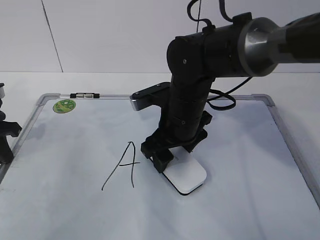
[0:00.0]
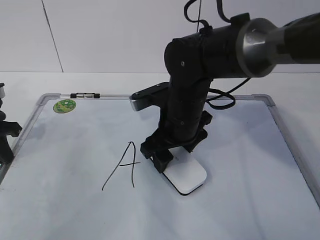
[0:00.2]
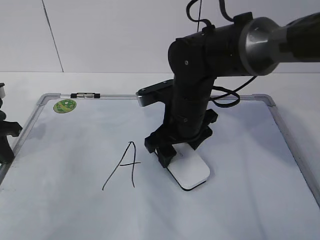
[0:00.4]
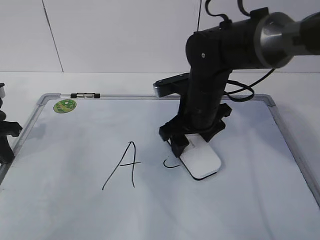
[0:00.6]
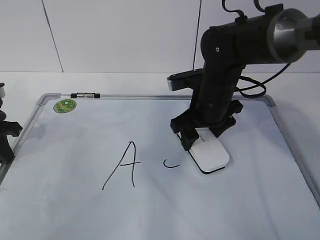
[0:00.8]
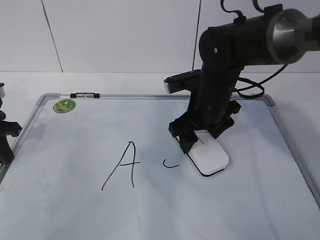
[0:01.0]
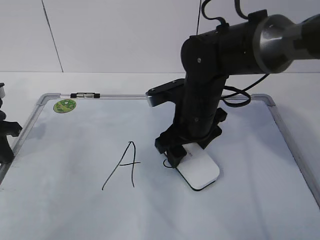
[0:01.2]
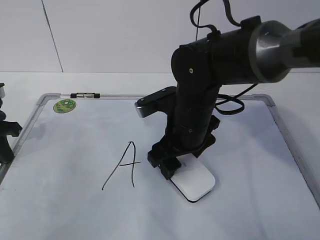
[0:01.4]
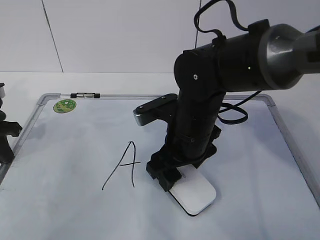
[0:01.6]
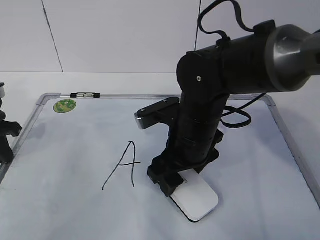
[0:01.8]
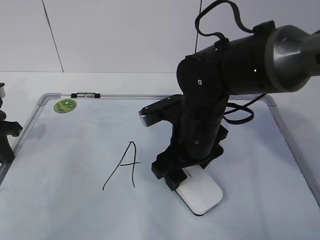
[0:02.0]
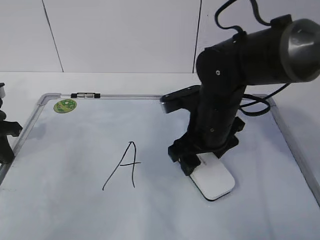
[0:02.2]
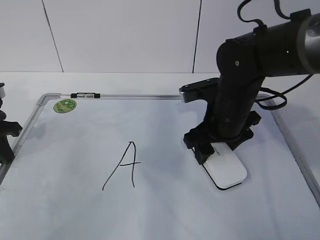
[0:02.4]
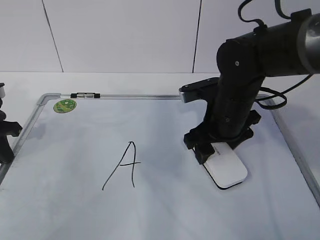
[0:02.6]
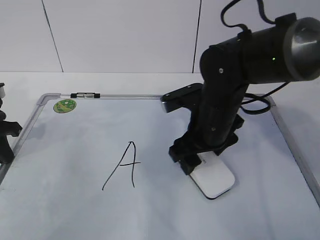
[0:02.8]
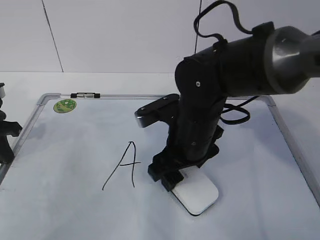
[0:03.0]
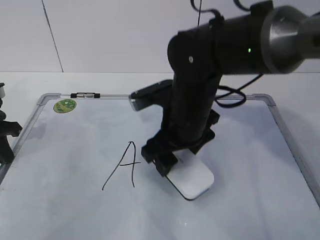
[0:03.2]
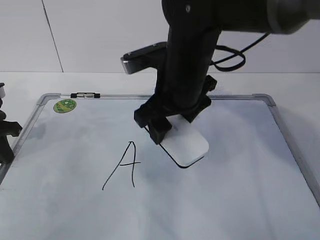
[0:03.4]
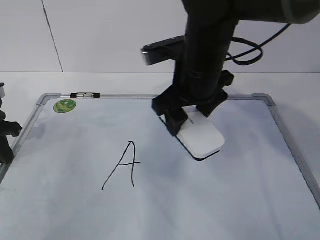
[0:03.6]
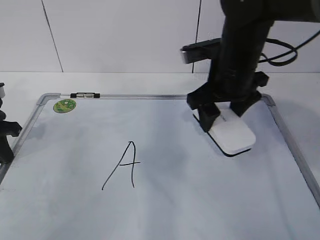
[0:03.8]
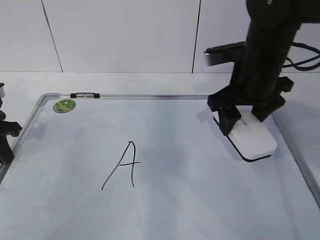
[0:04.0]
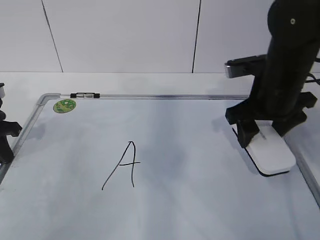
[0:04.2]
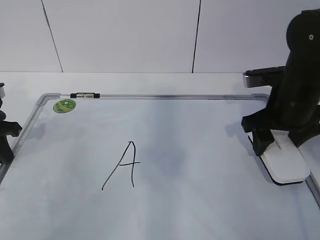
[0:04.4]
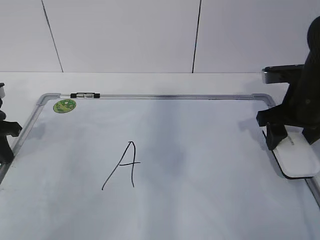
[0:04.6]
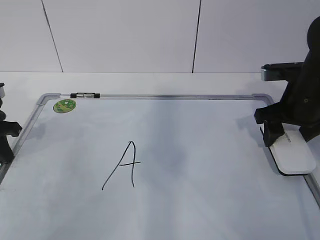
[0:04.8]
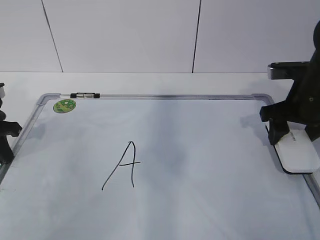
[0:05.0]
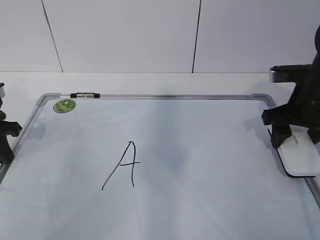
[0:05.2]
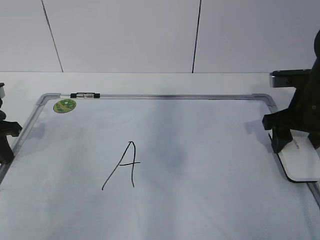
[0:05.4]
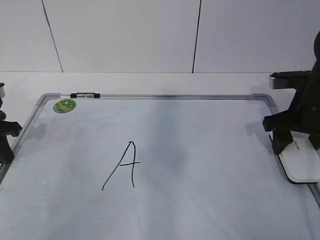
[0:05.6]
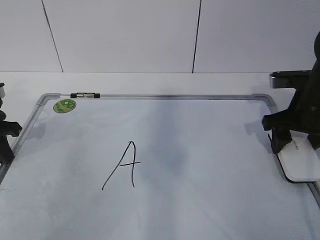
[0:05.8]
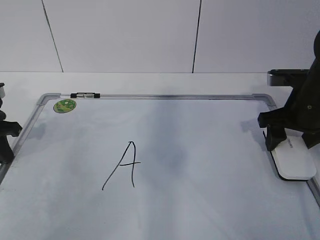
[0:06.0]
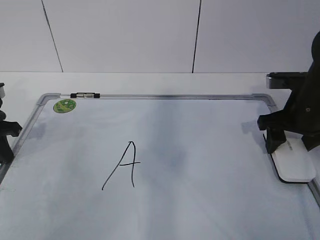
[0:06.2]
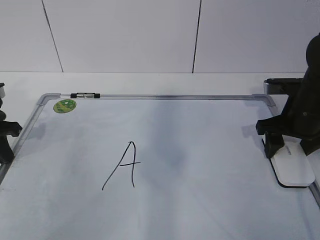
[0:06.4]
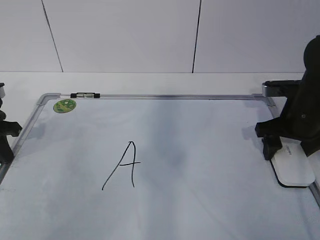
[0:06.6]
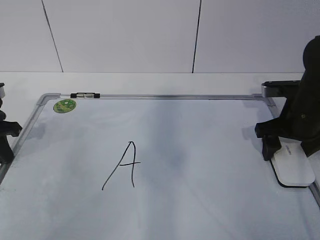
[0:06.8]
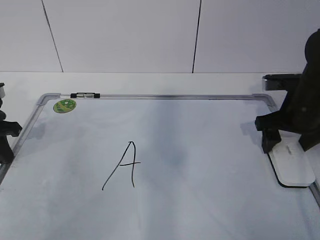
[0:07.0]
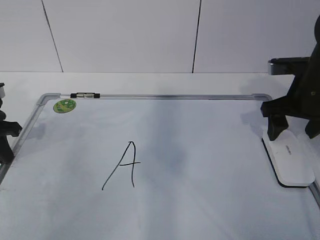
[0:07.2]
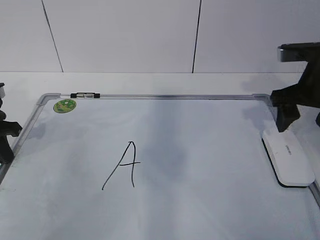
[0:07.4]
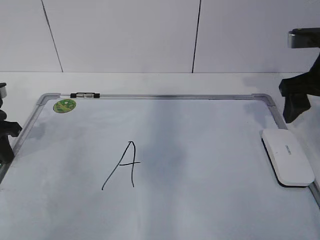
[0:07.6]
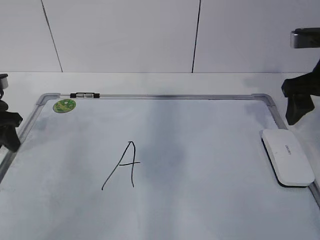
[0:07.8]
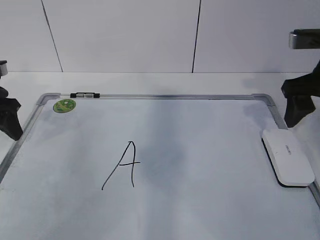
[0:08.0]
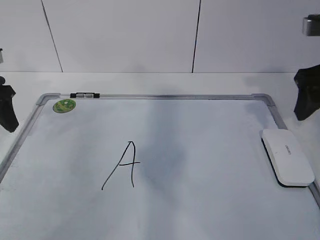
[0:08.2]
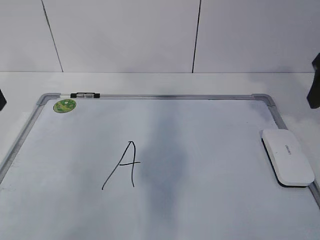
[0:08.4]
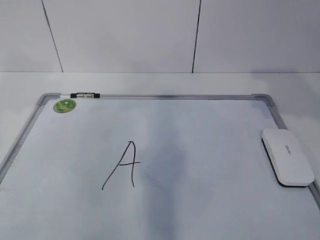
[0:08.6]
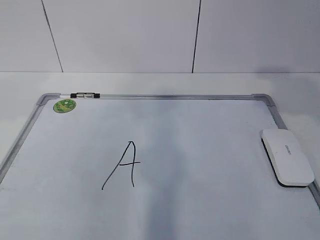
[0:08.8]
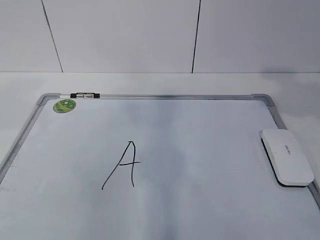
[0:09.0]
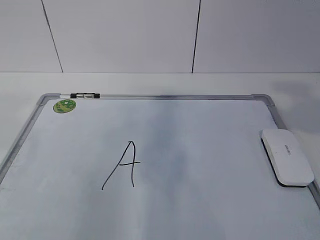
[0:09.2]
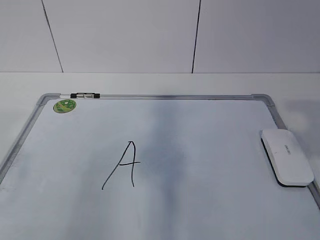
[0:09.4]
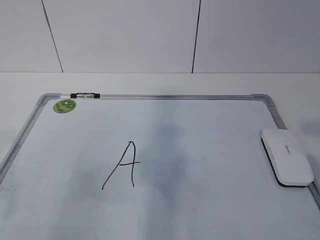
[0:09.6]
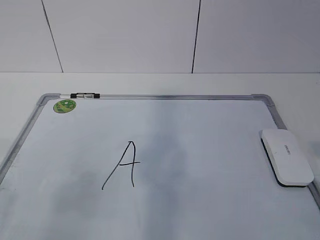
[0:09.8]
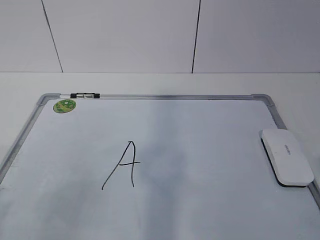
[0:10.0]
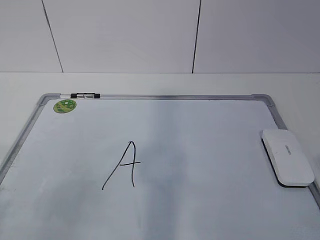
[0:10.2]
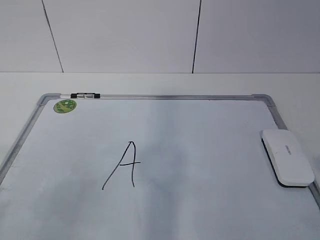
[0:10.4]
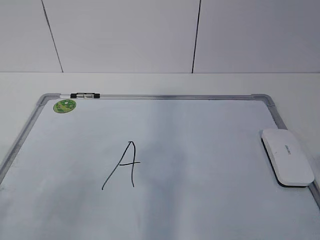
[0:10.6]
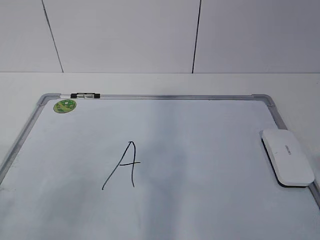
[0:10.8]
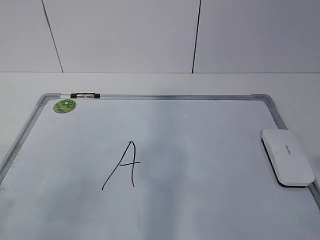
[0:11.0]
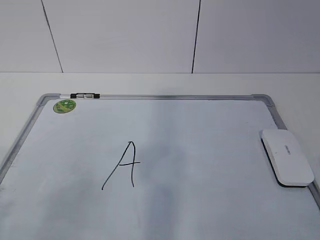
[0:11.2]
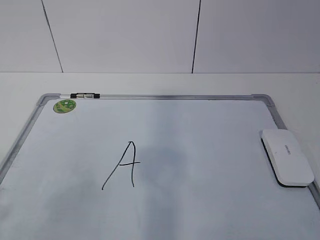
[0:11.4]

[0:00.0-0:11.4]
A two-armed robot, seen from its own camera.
Task of the whole recording: pick up the eraser on the blackboard and erase the letter "a".
Step, 0:00.0 to 0:01.6: Put down the eraser with your right hand.
0:02.8 to 0:04.2: The right gripper shifts about 10 cm to the right and upward.
0:04.2 to 0:05.6: The right gripper moves to the right, roughly 5 cm.
0:05.6 to 0:07.2: The right gripper opens up.
0:07.2 to 0:08.6: The left gripper goes some 20 cm upward, and opens. The right gripper shifts some 20 cm upward and backward.
0:08.6 to 0:10.0: The left gripper travels backward by approximately 25 cm.

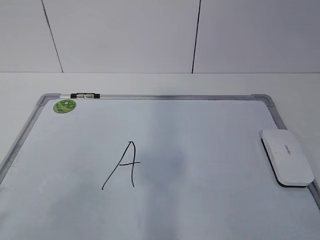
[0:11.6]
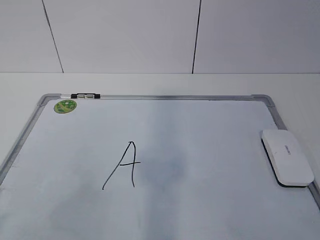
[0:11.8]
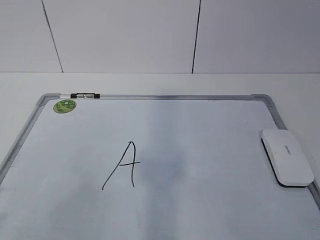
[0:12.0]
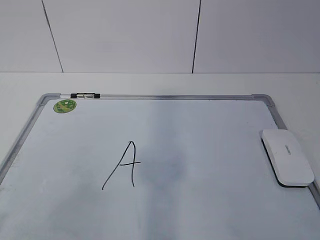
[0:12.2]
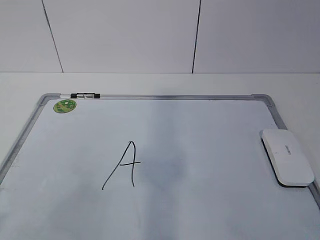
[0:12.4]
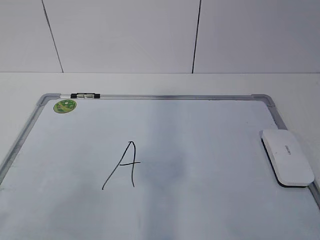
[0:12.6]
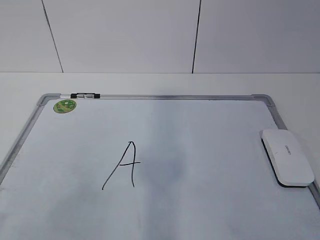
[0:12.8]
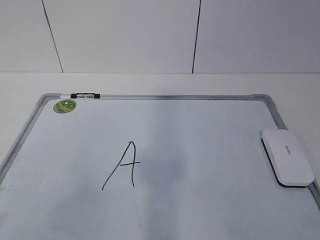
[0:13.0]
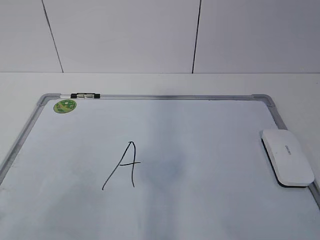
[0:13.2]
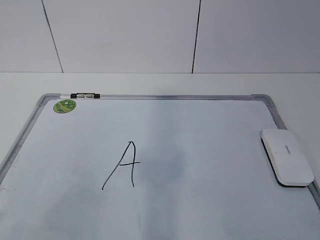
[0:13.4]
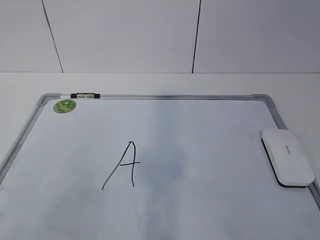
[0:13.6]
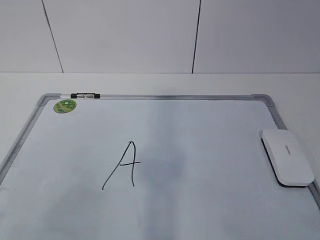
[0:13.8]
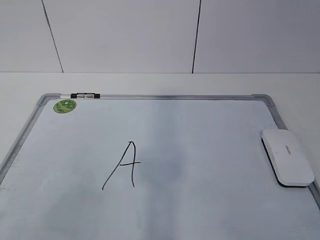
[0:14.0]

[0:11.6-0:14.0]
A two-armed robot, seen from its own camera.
Task of the whole recording: pick up the eraser on the blackboard and erase the letter "a".
0:12.8 to 0:14.0: Both grippers stay put.
